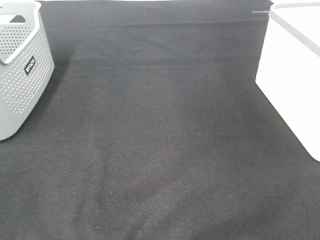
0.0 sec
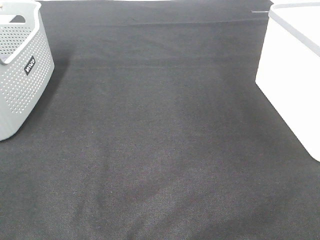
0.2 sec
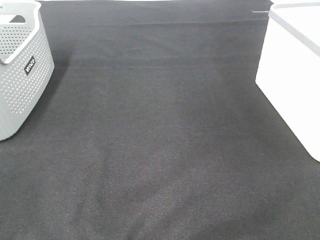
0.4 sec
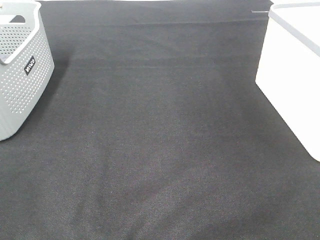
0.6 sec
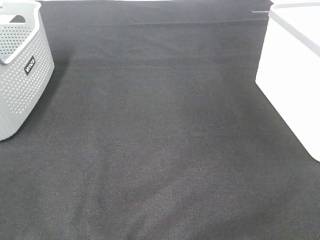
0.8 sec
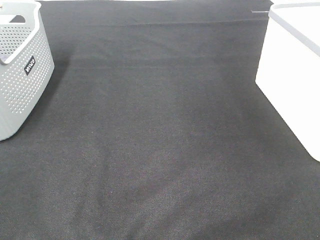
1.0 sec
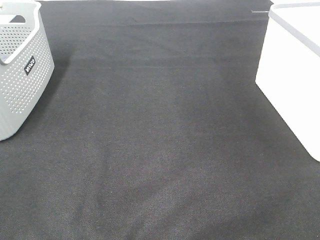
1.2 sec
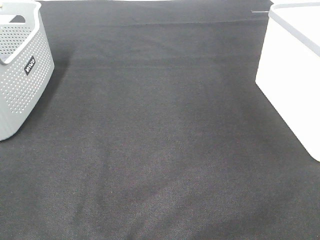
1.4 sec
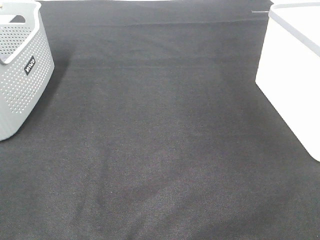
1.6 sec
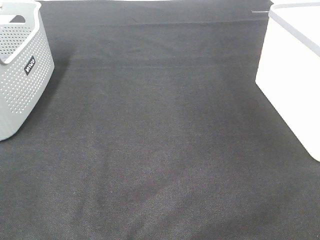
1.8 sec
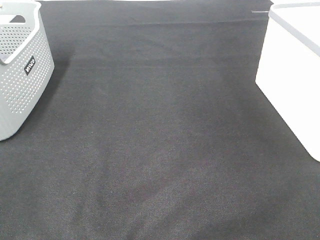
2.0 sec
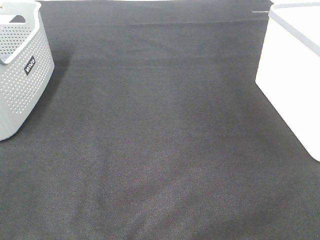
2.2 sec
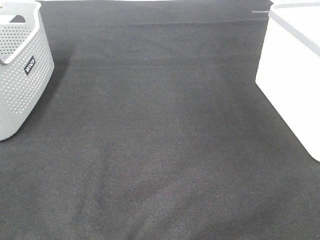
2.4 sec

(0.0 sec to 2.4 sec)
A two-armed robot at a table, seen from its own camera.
0.0 sec - 2.4 sec: Both grippers stay about where they are.

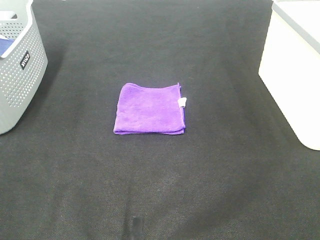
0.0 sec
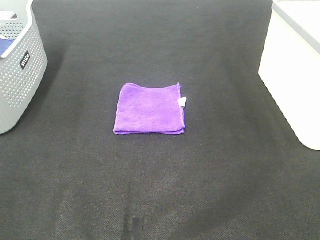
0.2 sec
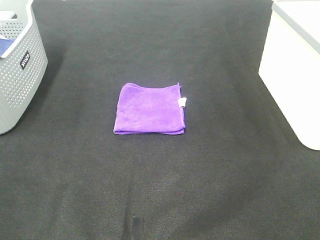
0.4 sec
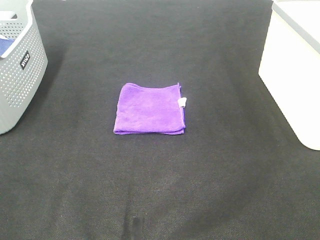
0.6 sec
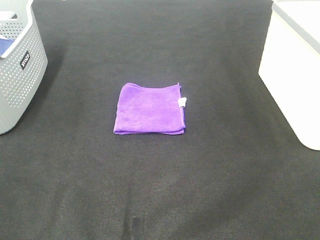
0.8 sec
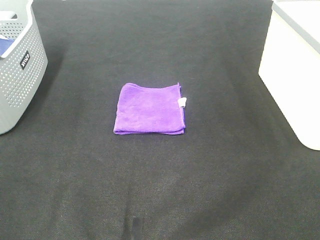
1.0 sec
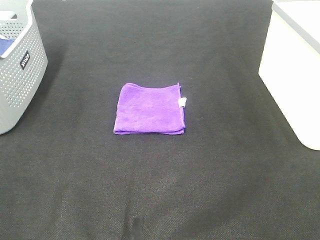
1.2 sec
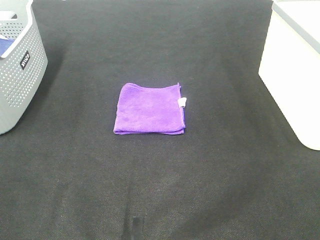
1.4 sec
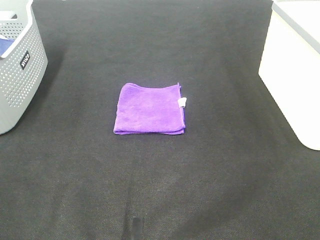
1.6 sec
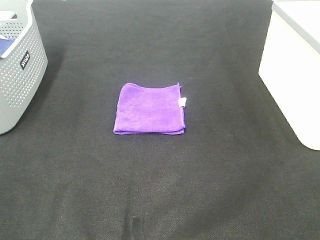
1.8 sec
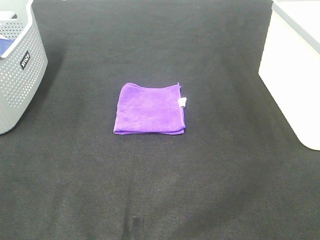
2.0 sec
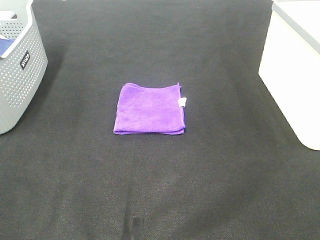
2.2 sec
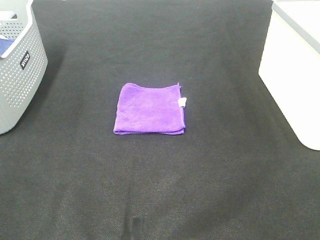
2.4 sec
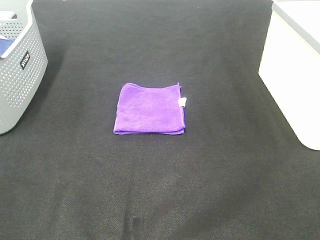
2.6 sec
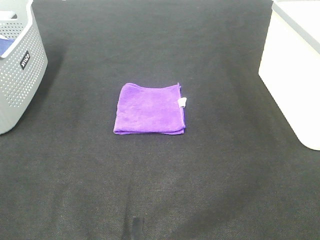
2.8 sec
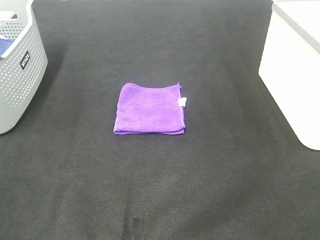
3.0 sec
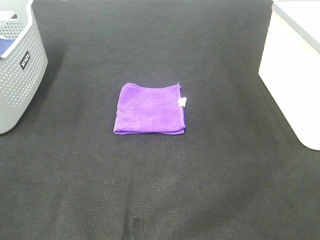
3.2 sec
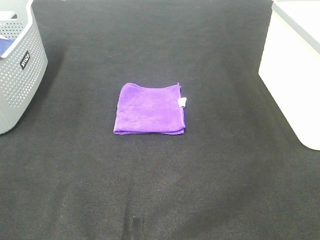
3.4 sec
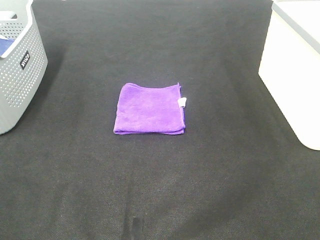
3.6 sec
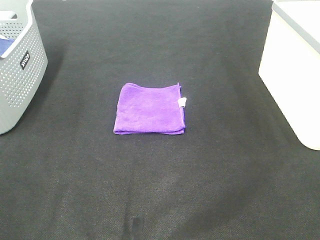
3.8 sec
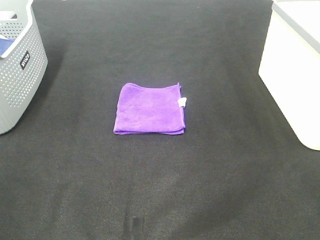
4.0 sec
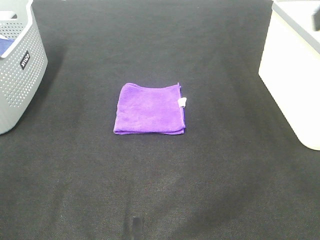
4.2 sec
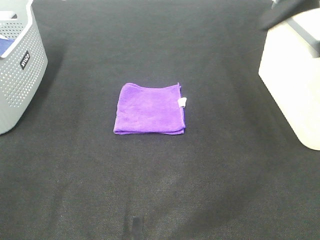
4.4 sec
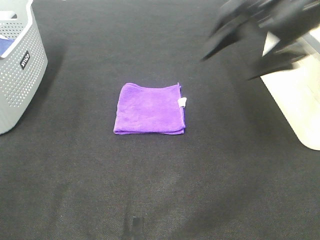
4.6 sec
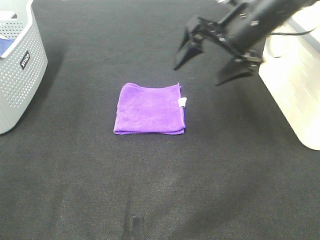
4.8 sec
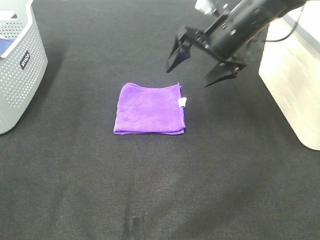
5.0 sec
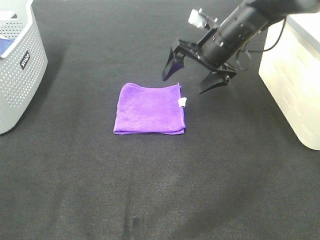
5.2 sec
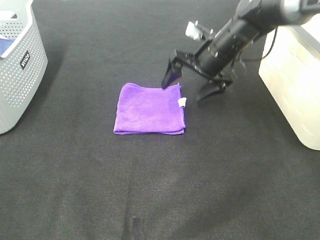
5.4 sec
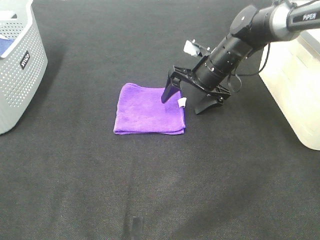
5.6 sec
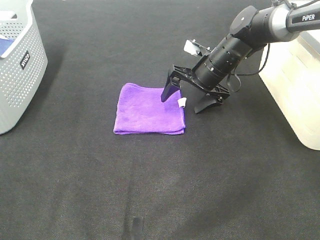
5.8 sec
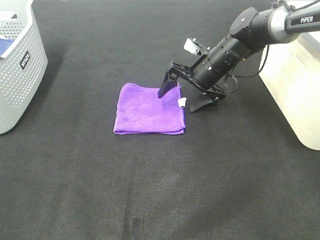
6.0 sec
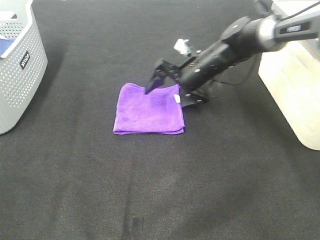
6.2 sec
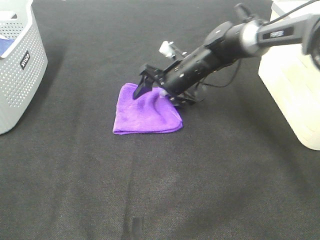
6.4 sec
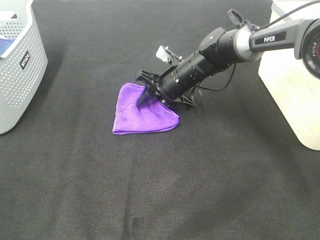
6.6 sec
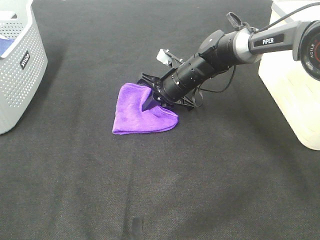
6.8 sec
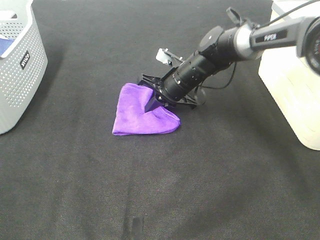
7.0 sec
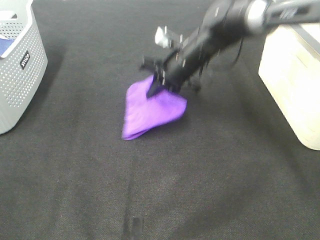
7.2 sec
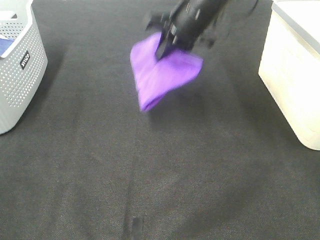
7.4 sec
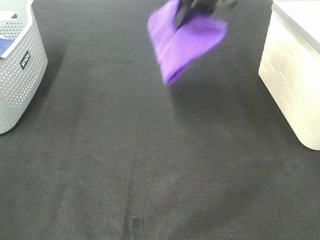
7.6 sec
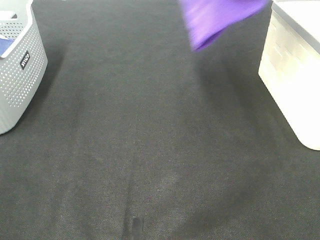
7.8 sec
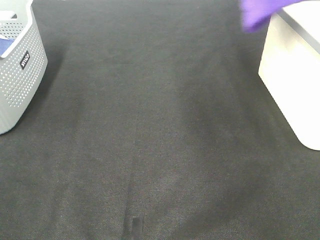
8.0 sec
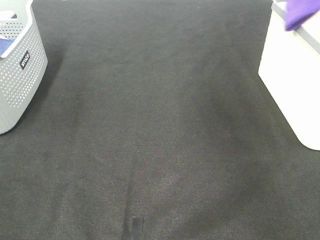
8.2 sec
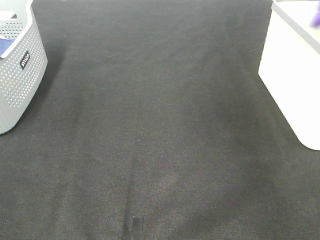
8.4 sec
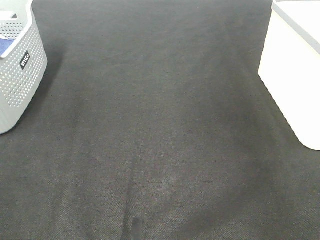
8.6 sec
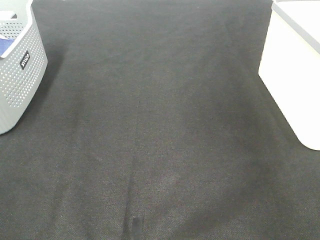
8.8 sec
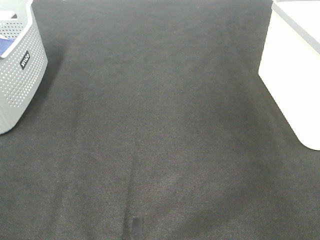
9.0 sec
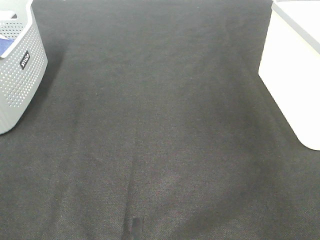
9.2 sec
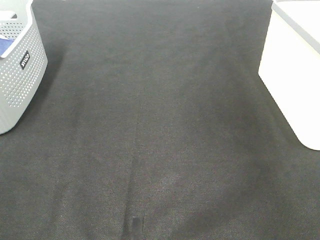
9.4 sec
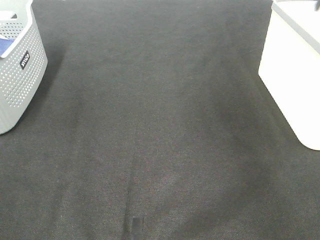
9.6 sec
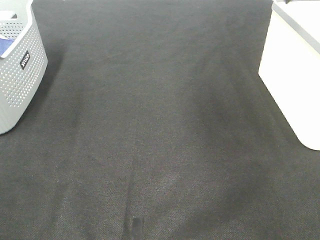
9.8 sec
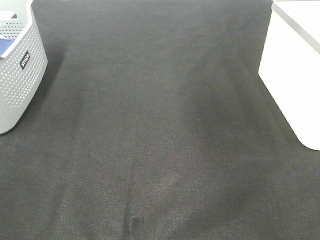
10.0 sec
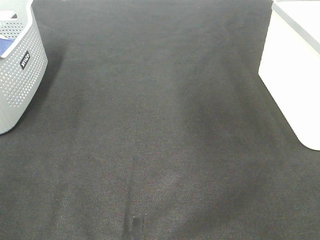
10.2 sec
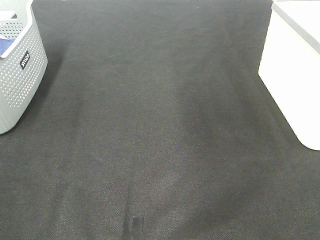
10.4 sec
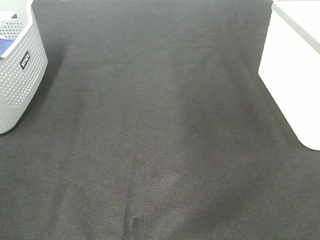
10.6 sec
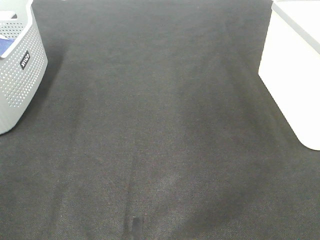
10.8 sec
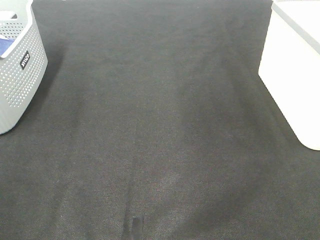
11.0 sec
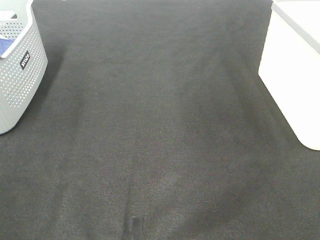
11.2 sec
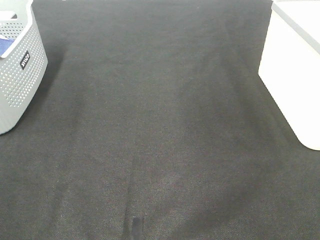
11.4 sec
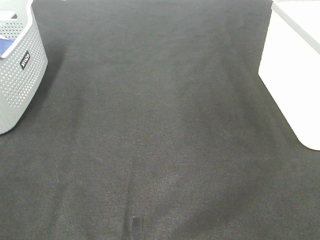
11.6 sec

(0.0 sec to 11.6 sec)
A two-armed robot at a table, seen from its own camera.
Step, 0.0 sec - 6.6 sec: Right hand: grab the folded purple towel.
Step, 6.8 sec - 9.0 sec: Right hand: place the purple towel in right basket.
0.0 sec - 2.8 sec: Neither gripper changes place.
2.8 sec - 4.4 sec: The right gripper heads forward, covering roughly 30 cm.
4.4 sec - 5.8 sec: The right gripper travels downward, forward and to the left by some 30 cm.
5.8 sec - 7.2 sec: The right gripper goes roughly 10 cm to the left and upward, and closes its fingers.
7.2 sec - 8.8 sec: The right gripper travels to the right and upward by roughly 40 cm.

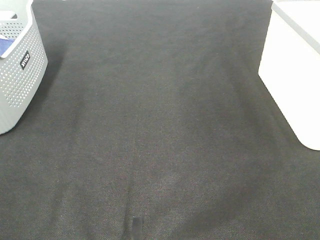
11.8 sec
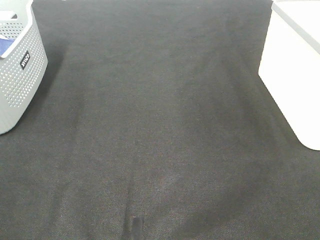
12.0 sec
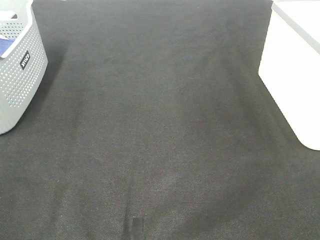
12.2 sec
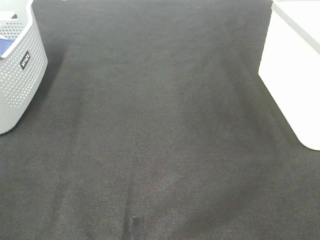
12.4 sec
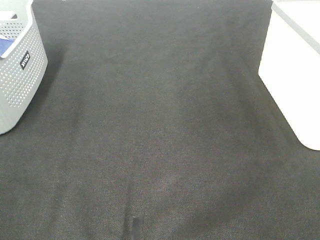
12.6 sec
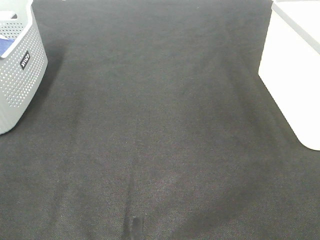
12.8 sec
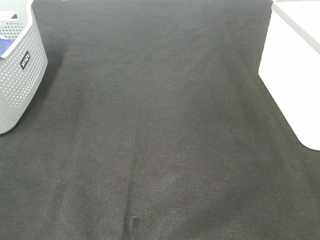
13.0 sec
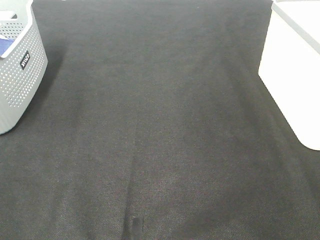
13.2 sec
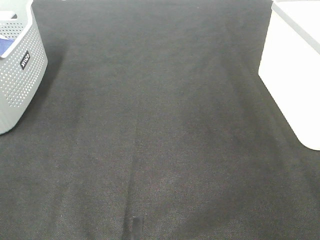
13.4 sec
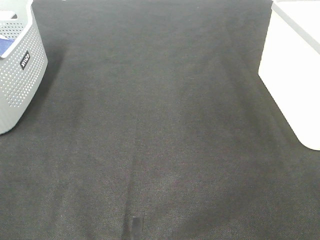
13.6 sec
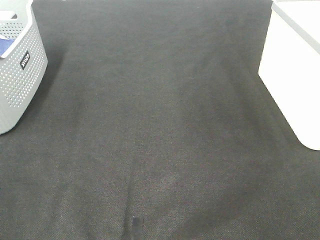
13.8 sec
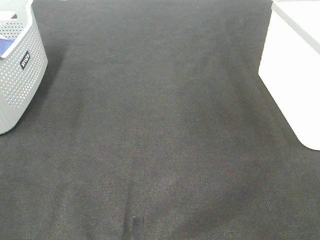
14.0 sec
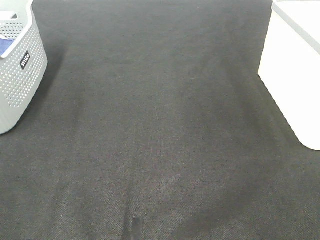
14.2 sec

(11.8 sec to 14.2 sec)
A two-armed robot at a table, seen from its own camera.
13.0 sec - 14.2 sec: Both grippers stay about where they are.

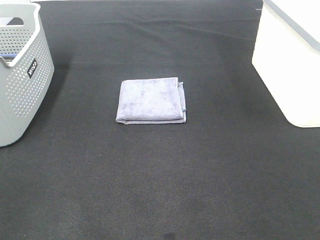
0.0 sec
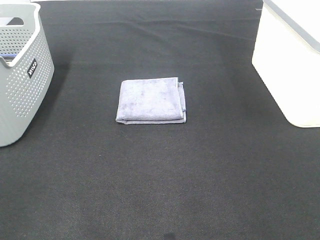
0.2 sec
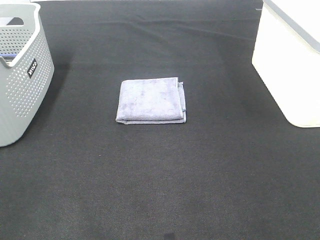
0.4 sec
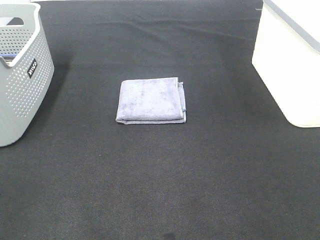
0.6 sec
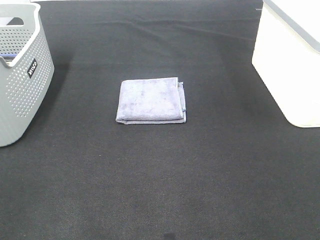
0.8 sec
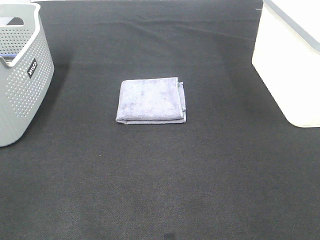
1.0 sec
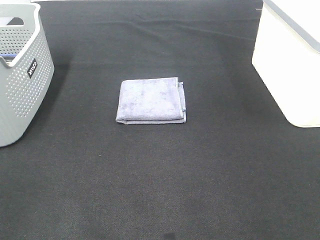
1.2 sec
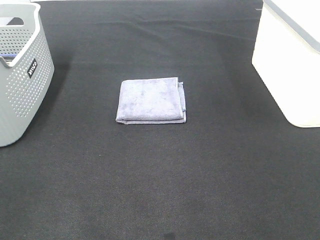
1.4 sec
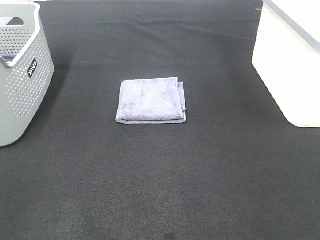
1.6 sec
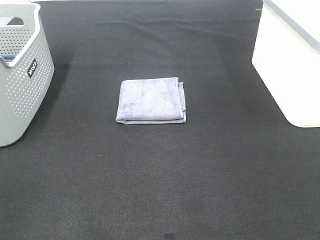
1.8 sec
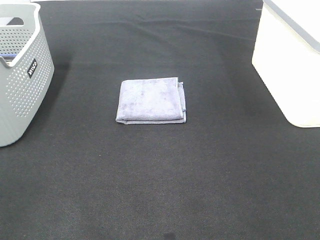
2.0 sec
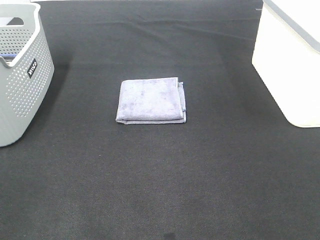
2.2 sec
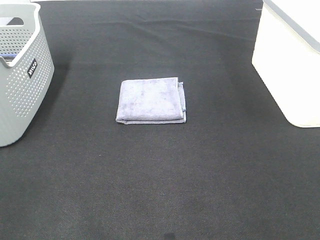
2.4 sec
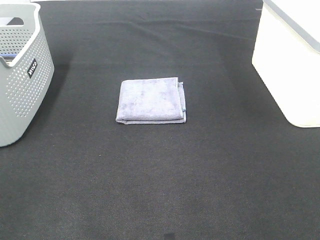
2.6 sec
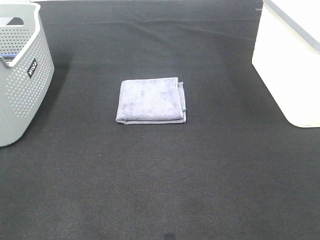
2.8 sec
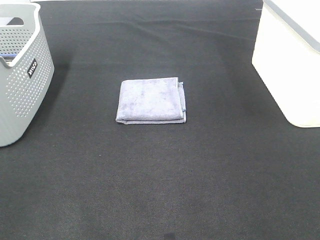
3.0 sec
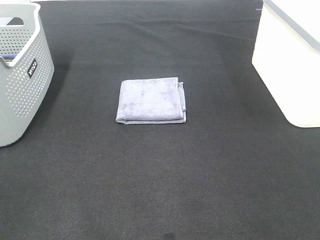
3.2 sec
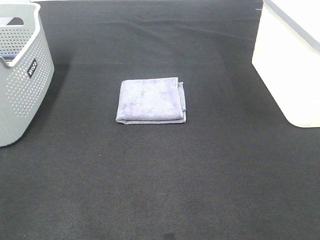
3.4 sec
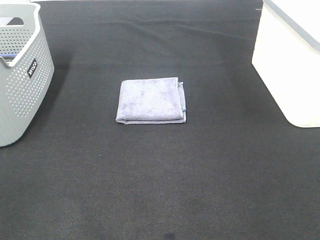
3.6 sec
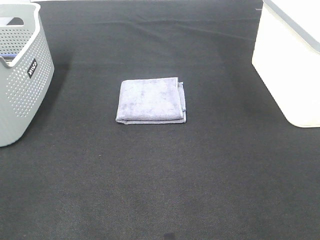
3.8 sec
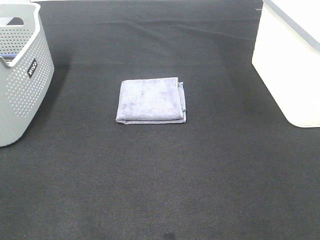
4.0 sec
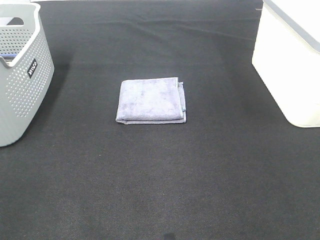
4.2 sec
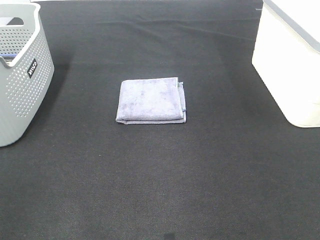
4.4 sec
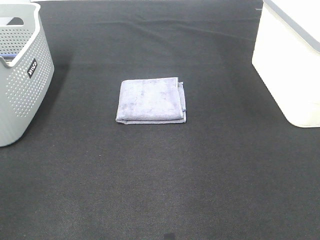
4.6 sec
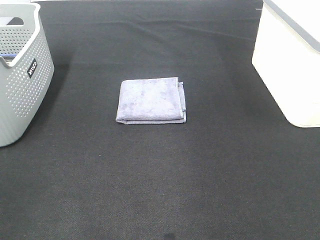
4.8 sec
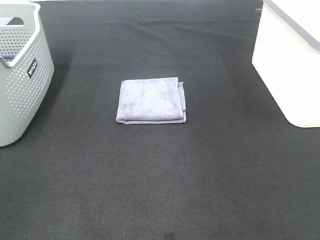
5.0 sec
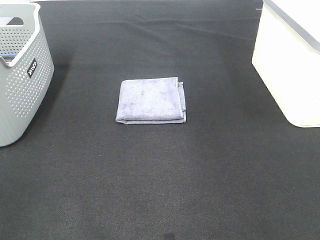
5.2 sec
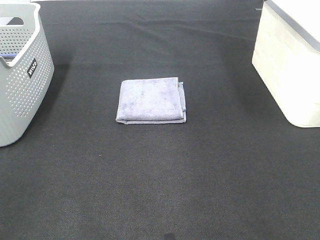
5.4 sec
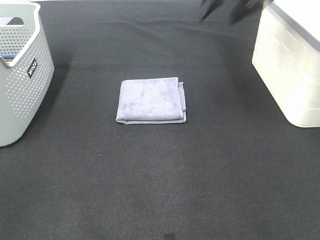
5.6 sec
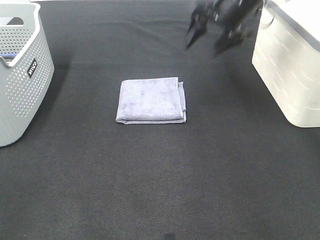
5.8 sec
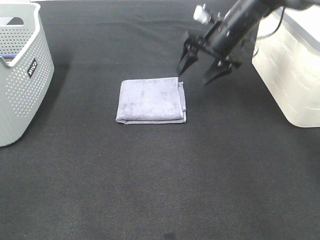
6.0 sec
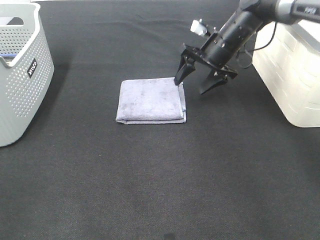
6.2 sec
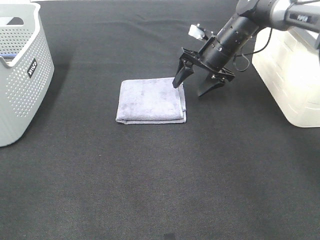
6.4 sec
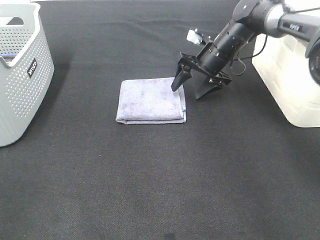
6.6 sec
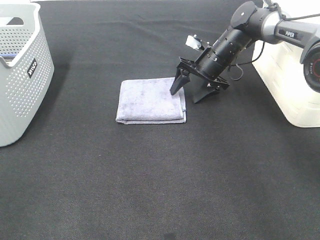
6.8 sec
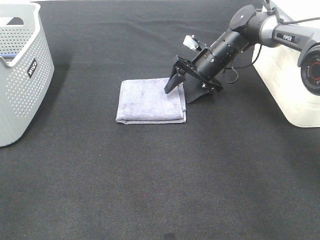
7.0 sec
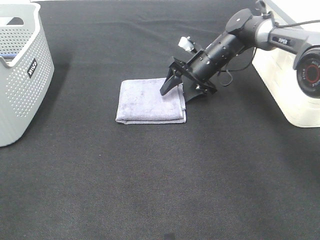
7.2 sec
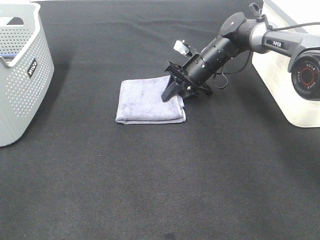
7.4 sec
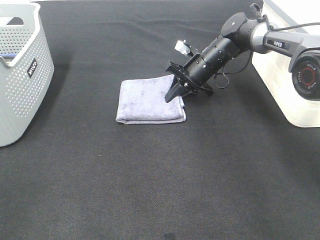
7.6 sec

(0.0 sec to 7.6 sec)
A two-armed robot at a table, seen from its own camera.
0.0 sec - 3.0 sec: Both grippers stay put.
4.6 sec - 6.0 sec: The right gripper shifts some 35 cm downward, forward and to the left.
6.0 sec - 7.6 sec: The right gripper goes roughly 10 cm downward, and closes its fingers.
